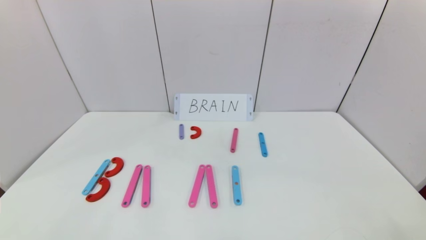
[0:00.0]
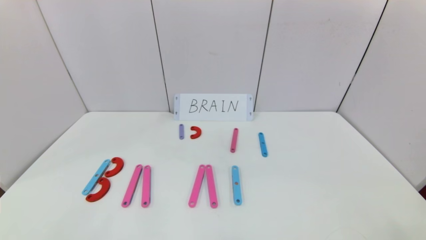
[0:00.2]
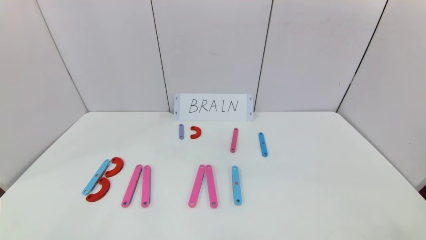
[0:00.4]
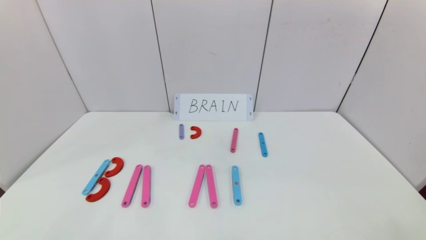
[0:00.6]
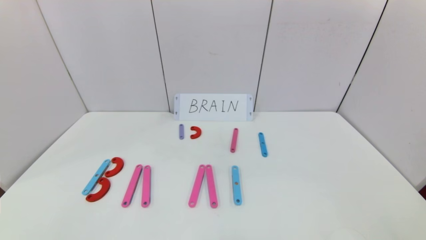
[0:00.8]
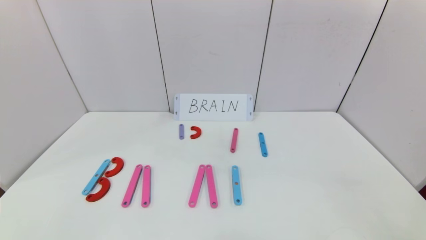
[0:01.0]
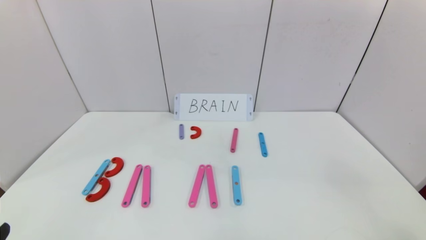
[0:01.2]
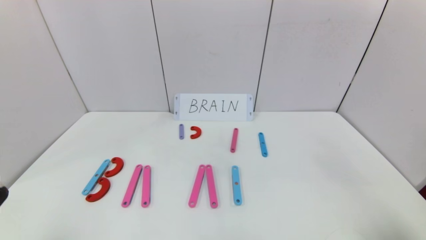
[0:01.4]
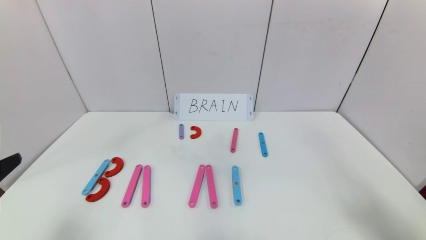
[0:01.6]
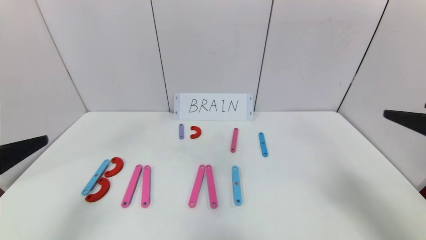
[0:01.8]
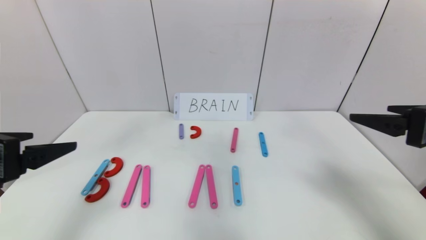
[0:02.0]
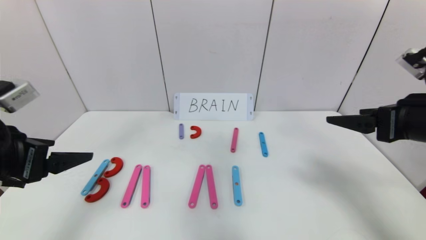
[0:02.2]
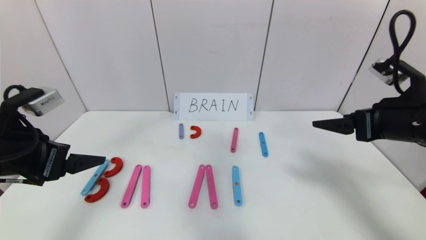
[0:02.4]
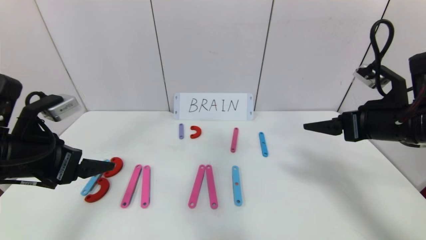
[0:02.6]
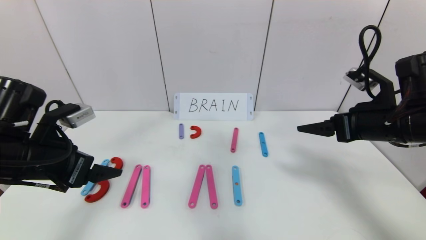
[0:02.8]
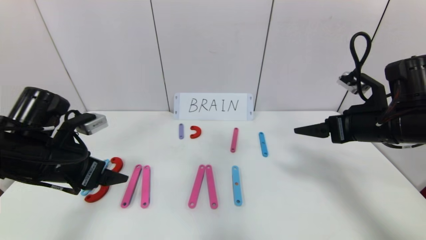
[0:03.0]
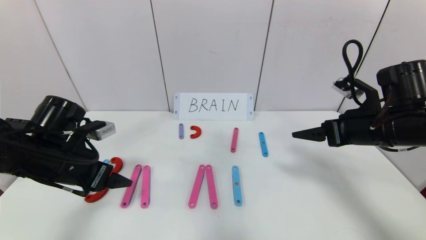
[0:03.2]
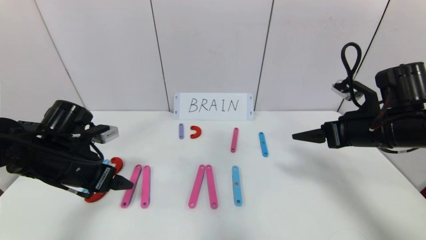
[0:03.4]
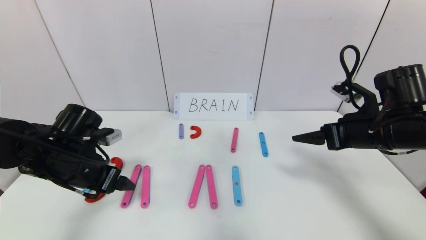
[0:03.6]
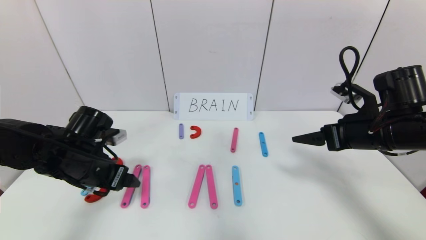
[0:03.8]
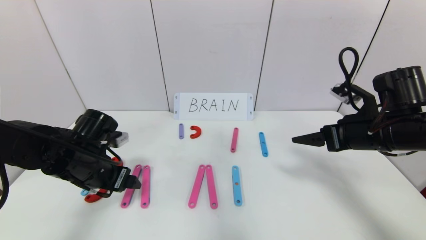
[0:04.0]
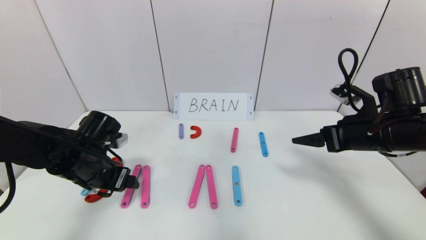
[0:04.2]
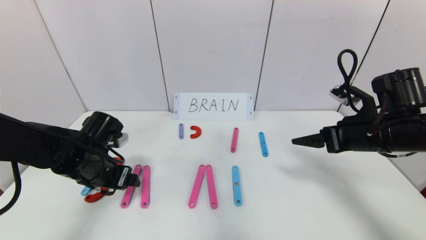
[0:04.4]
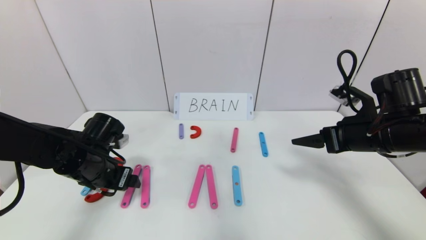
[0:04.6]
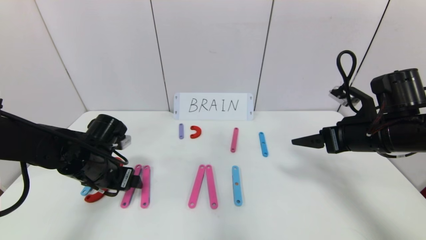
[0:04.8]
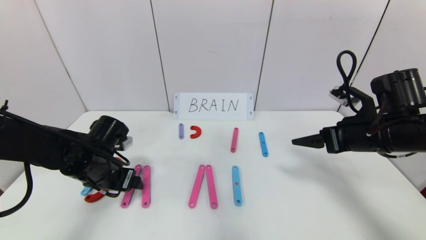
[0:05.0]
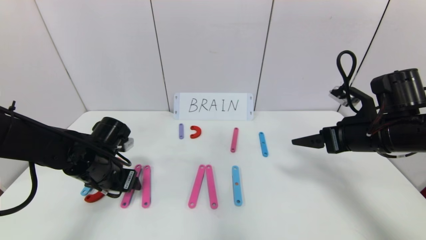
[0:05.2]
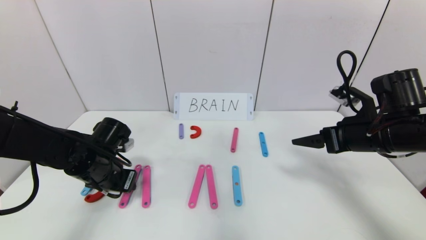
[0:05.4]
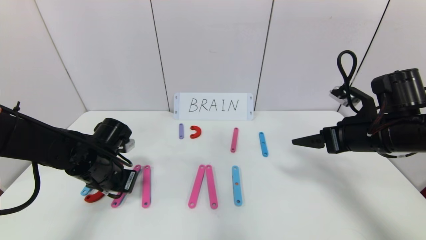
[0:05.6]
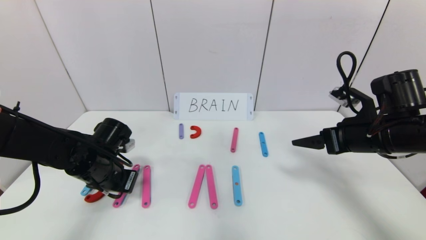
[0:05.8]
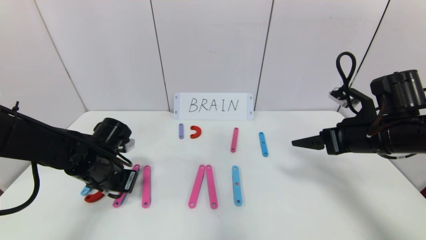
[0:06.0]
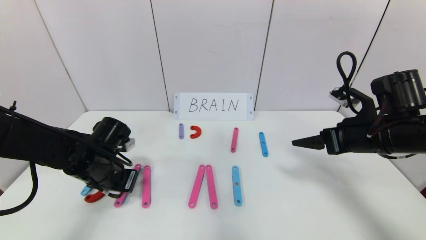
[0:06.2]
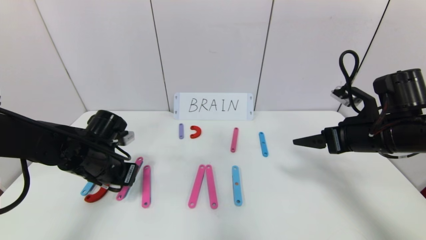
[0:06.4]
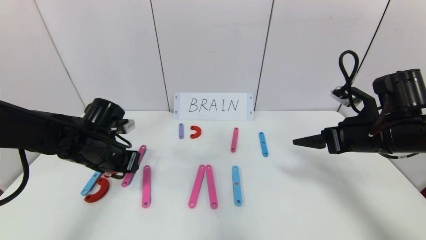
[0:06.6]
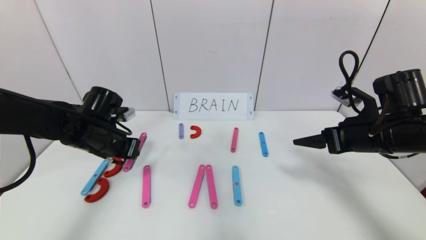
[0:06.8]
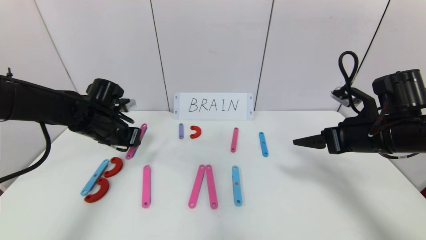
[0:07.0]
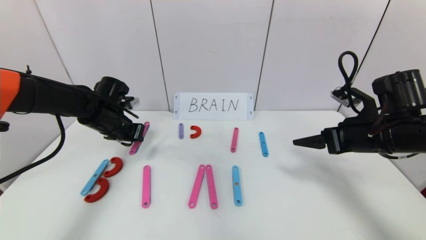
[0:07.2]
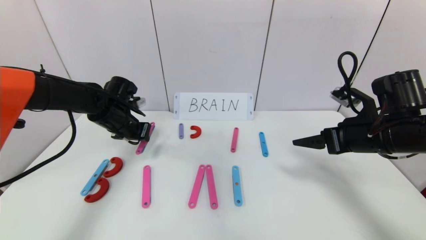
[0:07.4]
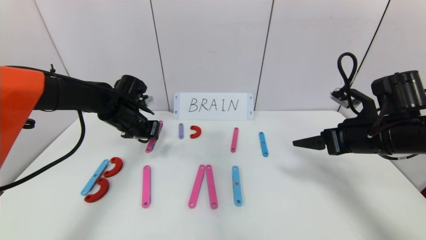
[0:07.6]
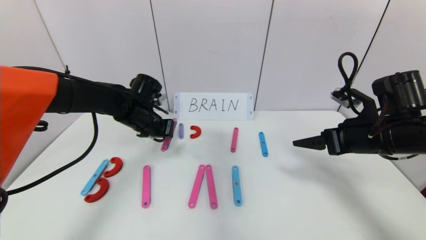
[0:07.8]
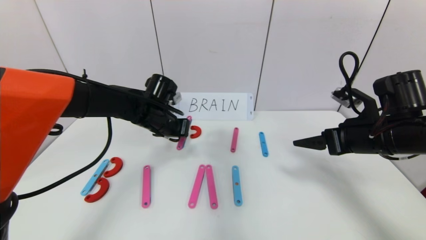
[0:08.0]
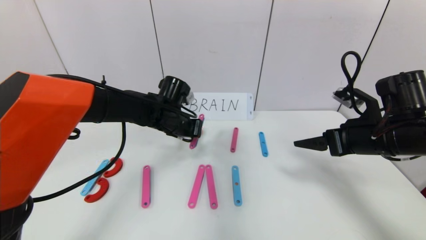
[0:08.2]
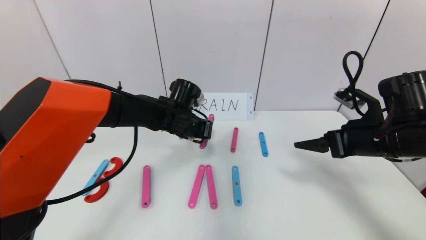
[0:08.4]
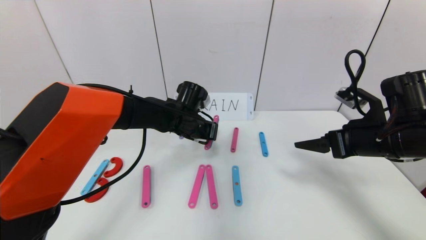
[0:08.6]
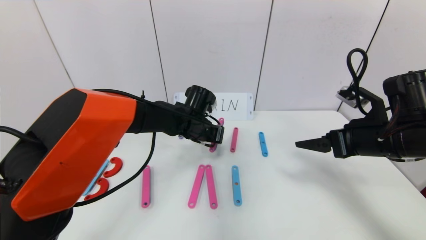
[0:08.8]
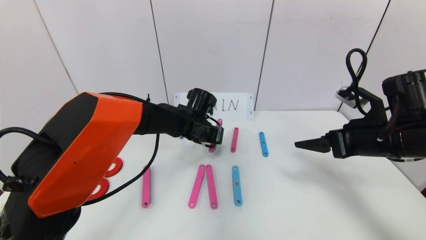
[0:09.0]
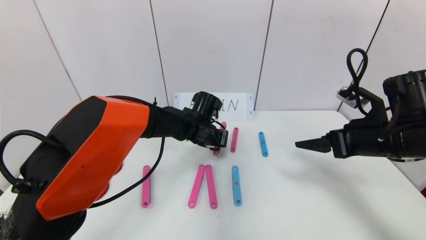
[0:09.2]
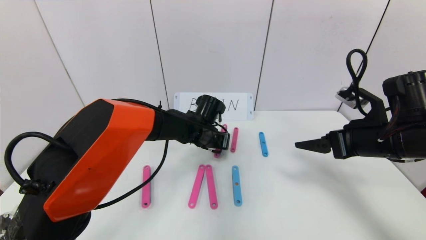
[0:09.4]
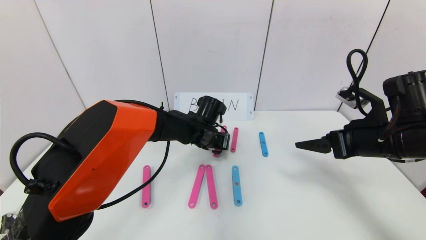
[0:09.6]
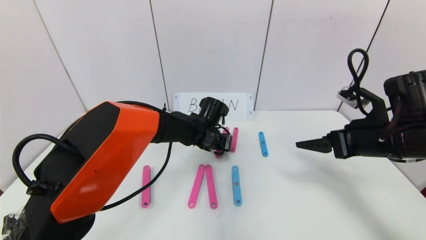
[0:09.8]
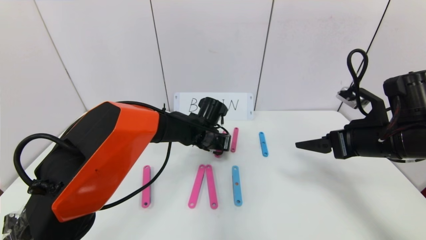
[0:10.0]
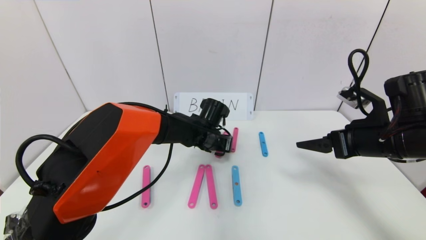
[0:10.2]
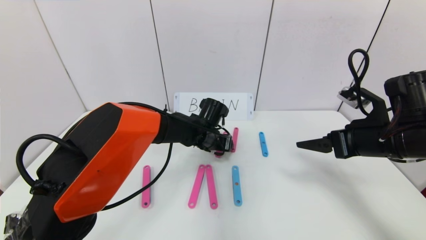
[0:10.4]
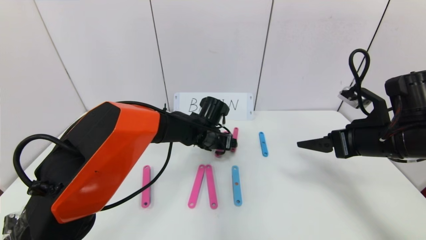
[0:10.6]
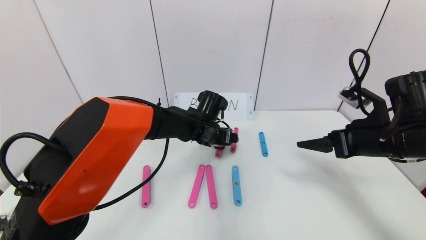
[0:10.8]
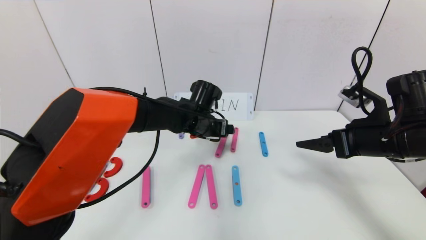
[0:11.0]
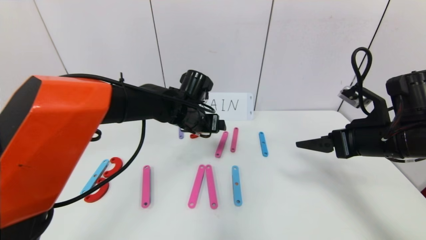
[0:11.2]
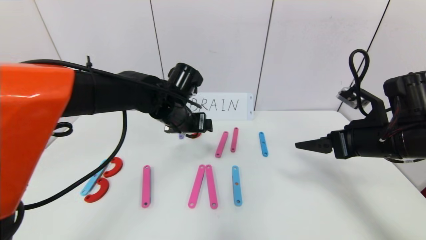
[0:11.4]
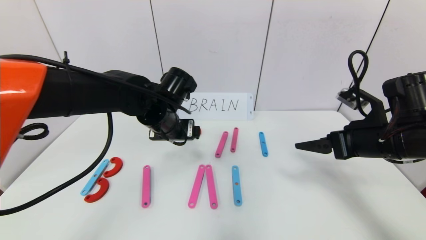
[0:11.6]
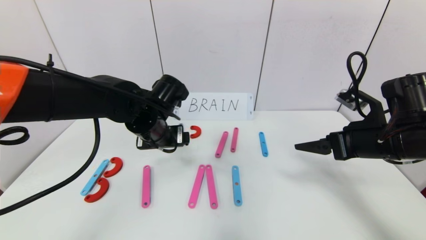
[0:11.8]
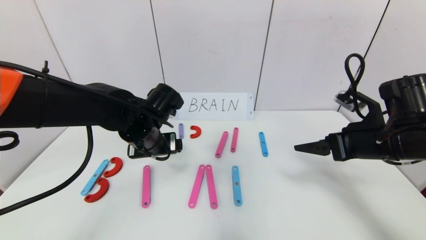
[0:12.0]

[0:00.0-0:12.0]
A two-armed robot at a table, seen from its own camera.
Task of the whole recording: rearrange the word baai as brain.
0:00.0 to 0:01.6: Both grippers move upward and forward, some 20 cm.
0:01.6 to 0:03.0: The two grippers go some 20 cm forward.
0:03.0 to 0:04.4: The left gripper shifts some 5 cm downward.
0:04.4 to 0:06.0: The left gripper closes its fingers.
0:06.0 to 0:07.6: The left gripper travels forward and upward by approximately 10 cm.
0:07.6 to 0:09.0: The left gripper is displaced to the right by about 15 cm.
0:09.0 to 0:10.4: The left gripper opens up.
0:10.4 to 0:12.0: The left gripper moves to the left, backward and upward, roughly 15 cm.

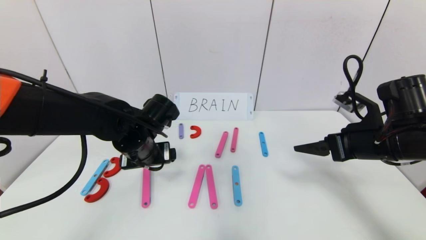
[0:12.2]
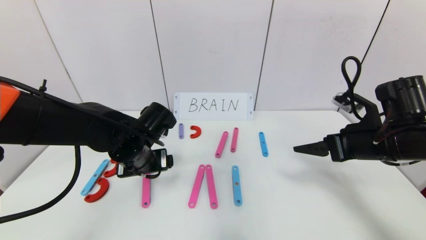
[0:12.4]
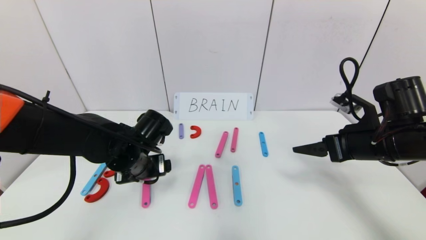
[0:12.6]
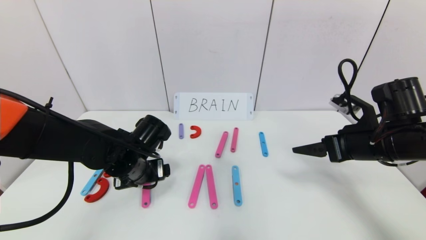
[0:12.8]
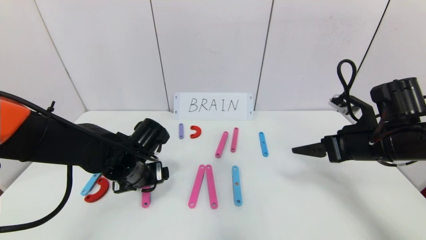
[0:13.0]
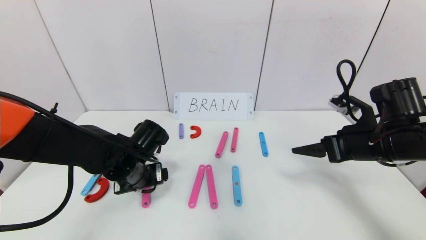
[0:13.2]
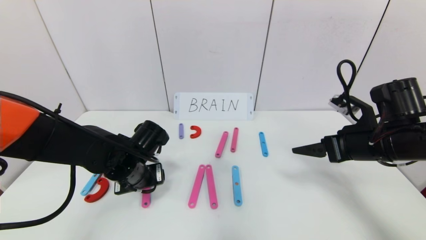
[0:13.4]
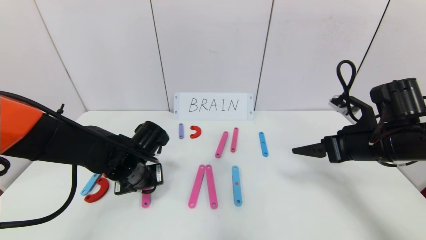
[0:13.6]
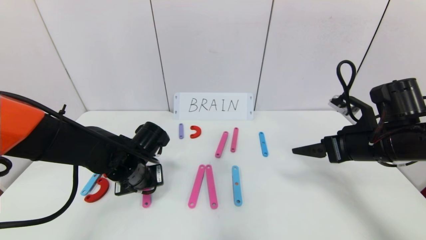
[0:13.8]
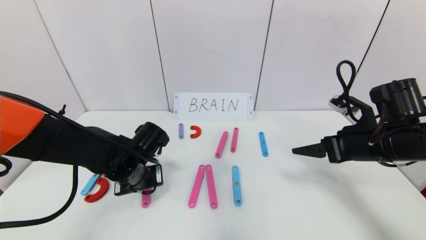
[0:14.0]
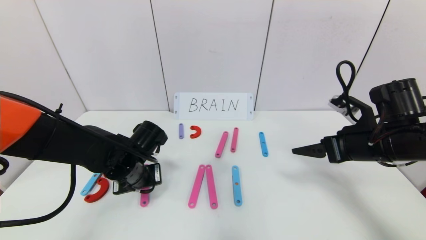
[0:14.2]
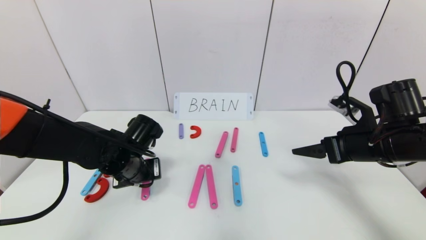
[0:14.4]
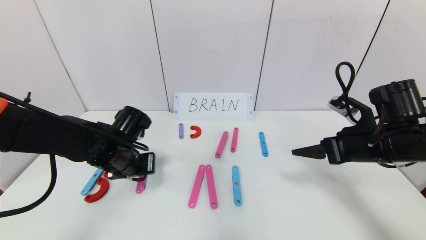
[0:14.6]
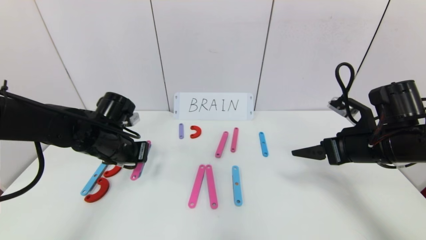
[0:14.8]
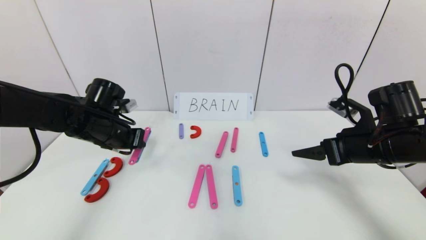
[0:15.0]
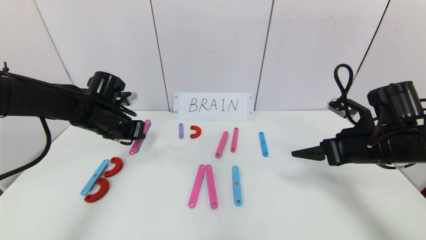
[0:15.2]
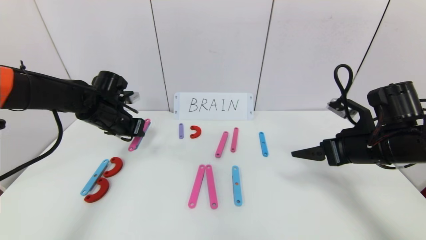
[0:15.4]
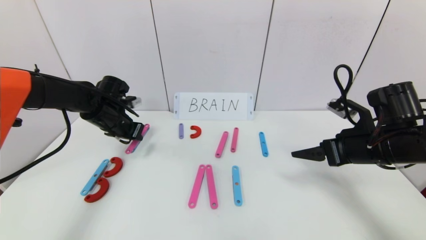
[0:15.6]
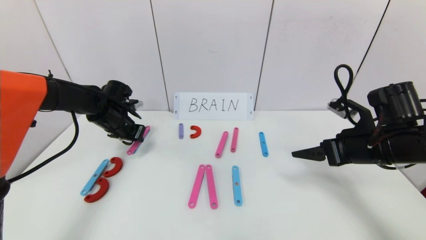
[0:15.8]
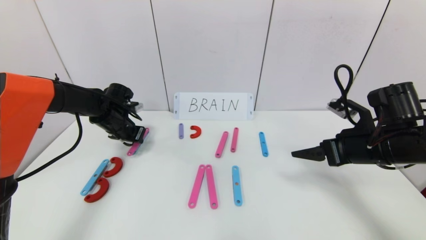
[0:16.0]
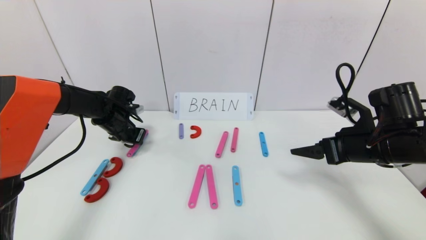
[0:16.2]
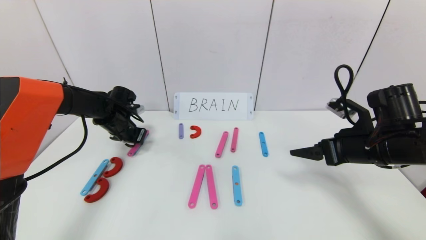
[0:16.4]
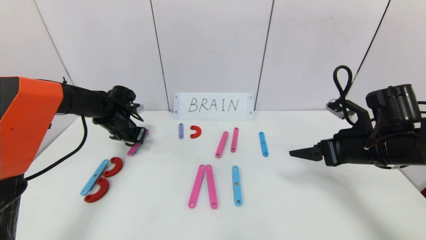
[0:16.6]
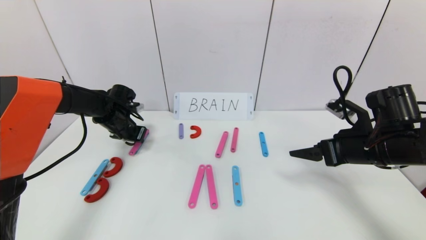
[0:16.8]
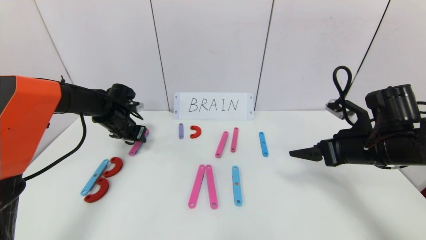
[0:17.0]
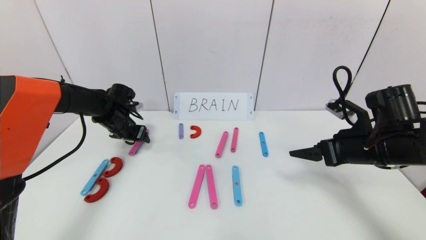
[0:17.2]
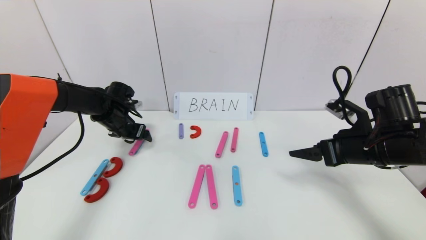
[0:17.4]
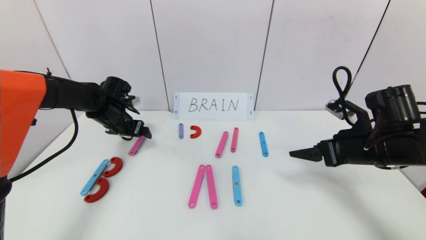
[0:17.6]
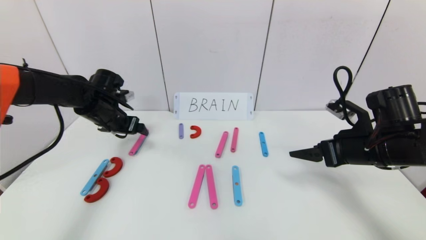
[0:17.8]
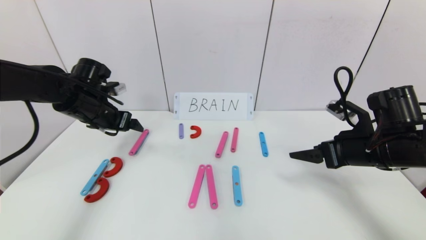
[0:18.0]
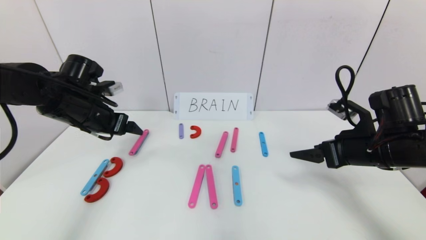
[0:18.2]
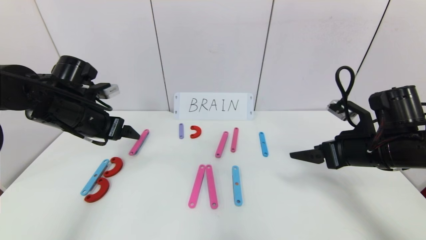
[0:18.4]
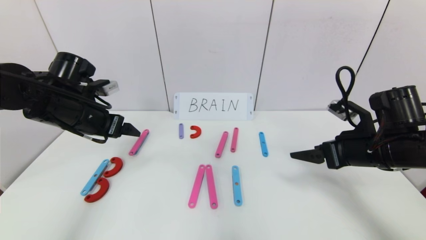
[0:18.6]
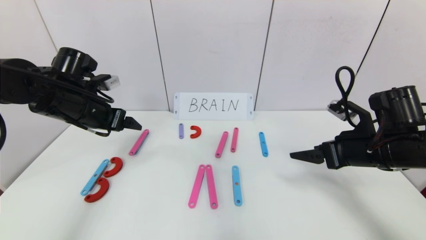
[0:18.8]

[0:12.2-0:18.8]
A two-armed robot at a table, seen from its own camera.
Task of the whole recording: rearrange the word baai as brain.
Step, 0:12.2 to 0:17.0: Disassemble the second character A.
0:12.2 to 0:13.8: The left gripper goes some 5 cm downward, and closes its fingers.
0:13.8 to 0:15.4: The left gripper travels forward, to the left and upward by some 15 cm.
0:15.4 to 0:17.2: The left gripper shifts about 5 cm forward, and opens up.
0:17.2 to 0:18.8: The left gripper moves backward and upward, approximately 15 cm.
